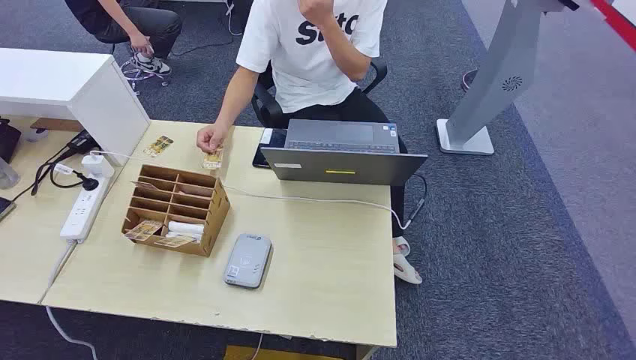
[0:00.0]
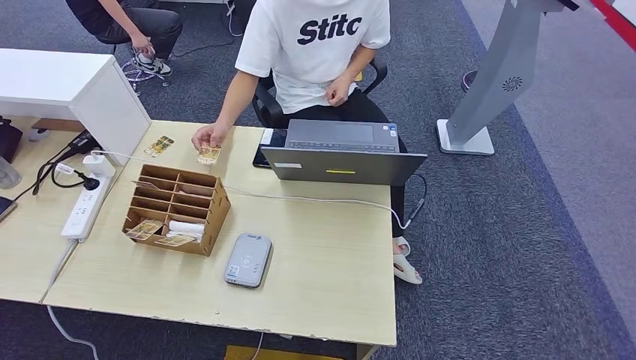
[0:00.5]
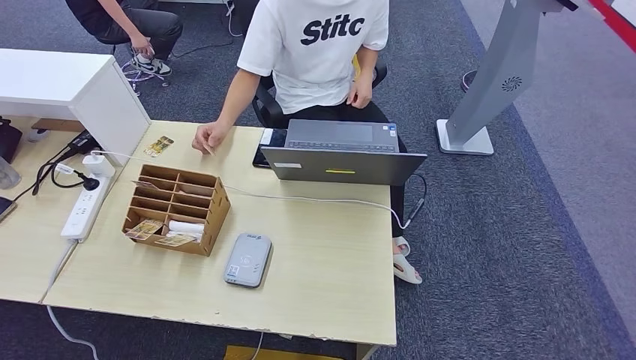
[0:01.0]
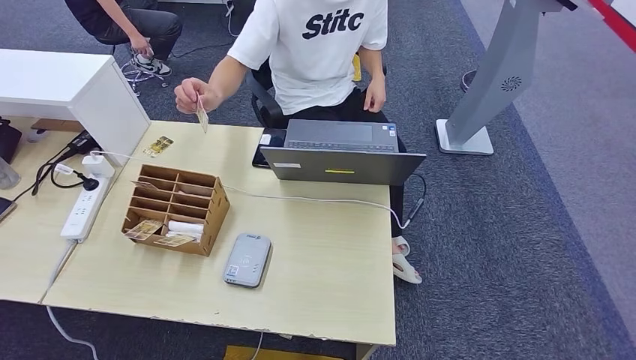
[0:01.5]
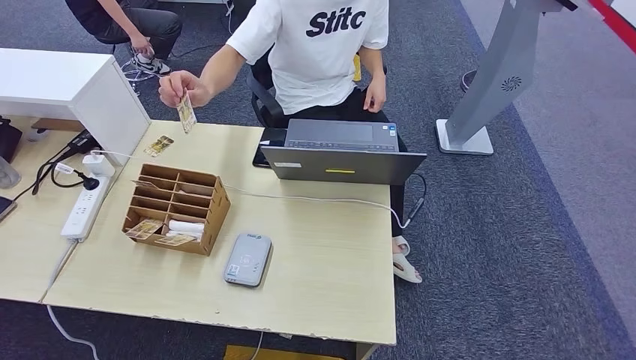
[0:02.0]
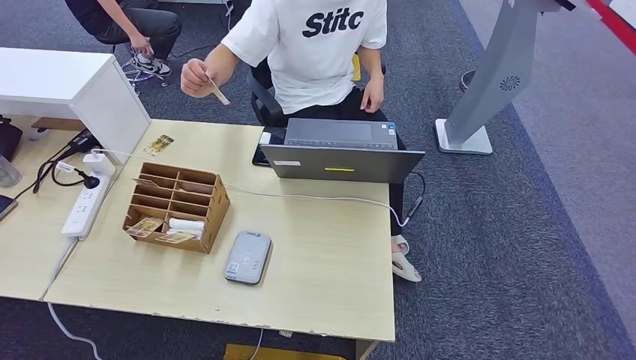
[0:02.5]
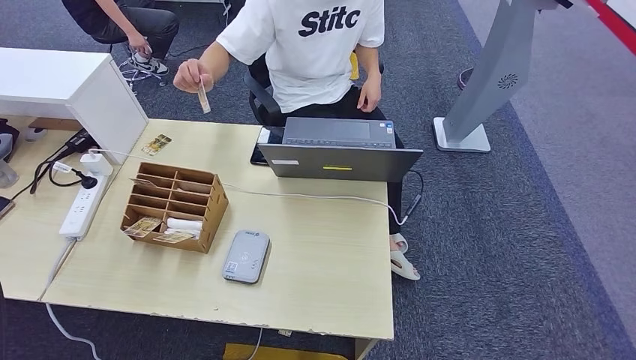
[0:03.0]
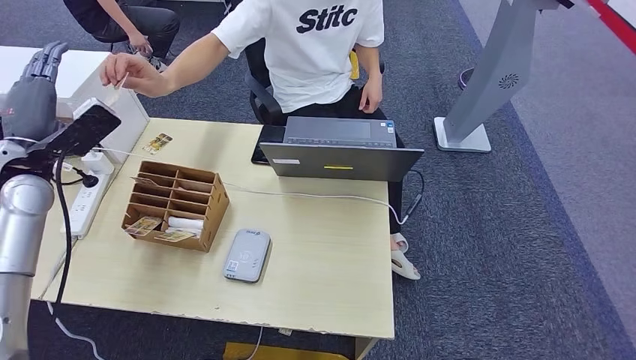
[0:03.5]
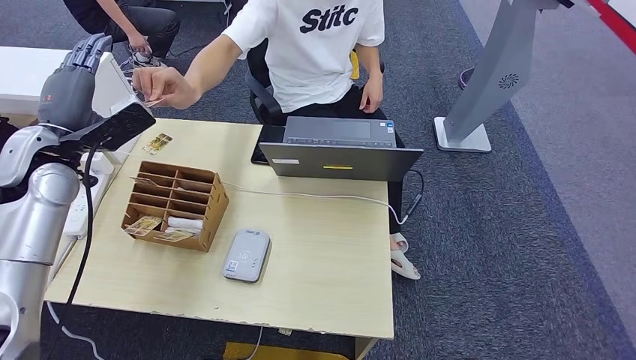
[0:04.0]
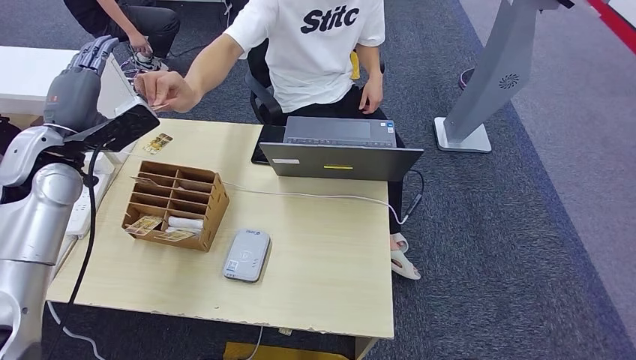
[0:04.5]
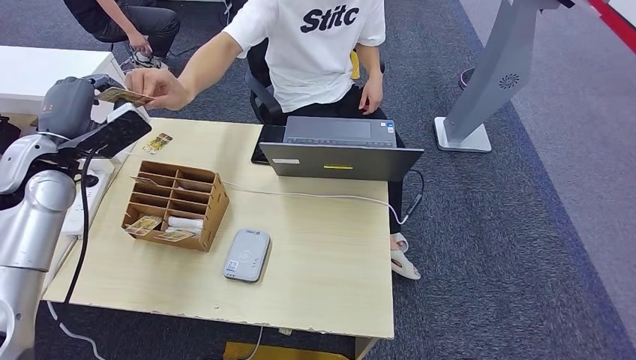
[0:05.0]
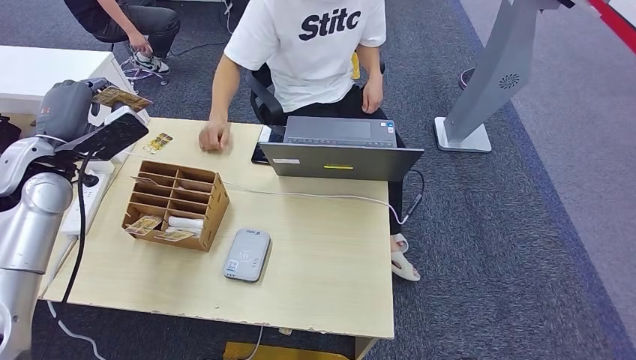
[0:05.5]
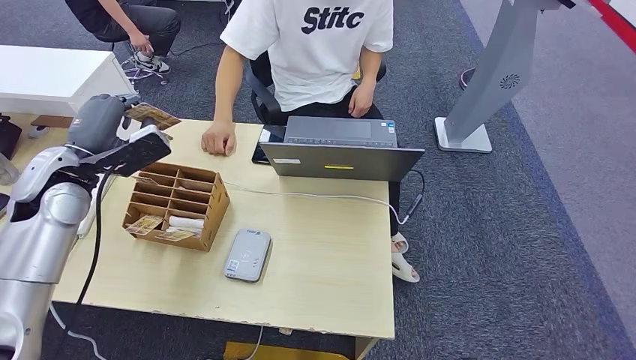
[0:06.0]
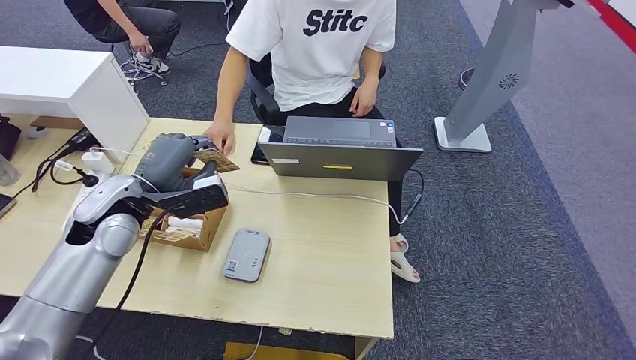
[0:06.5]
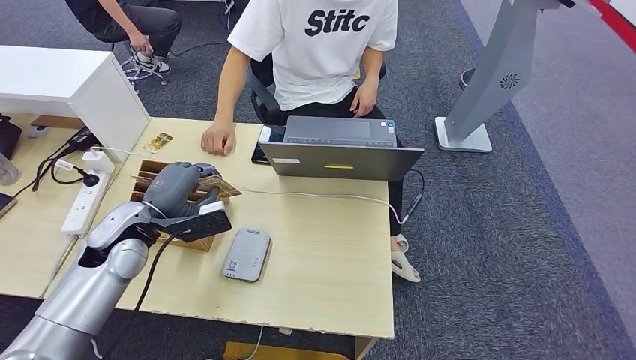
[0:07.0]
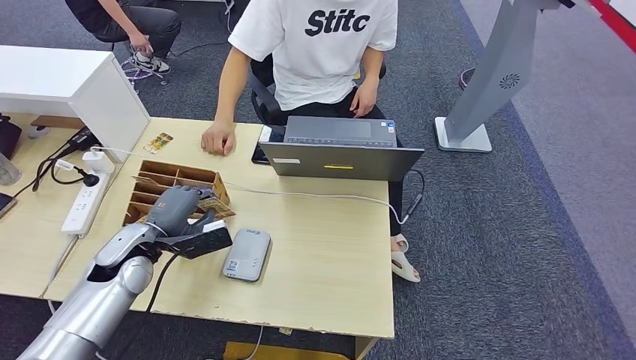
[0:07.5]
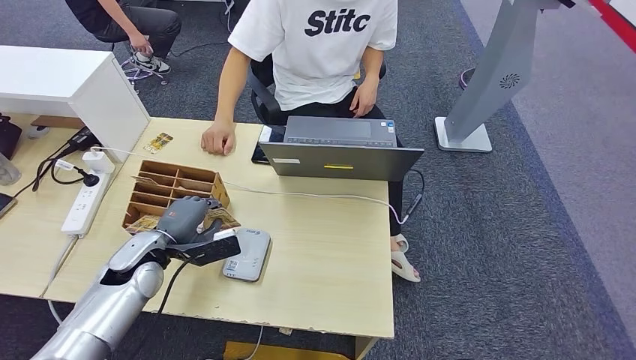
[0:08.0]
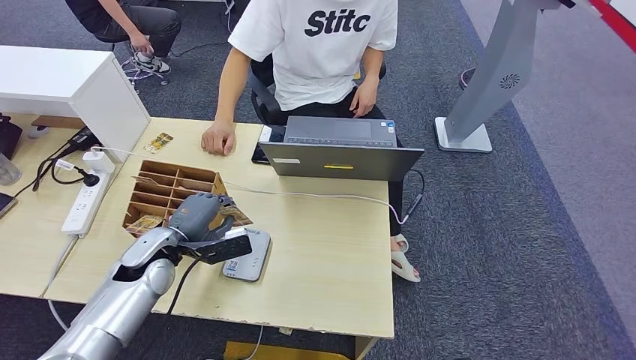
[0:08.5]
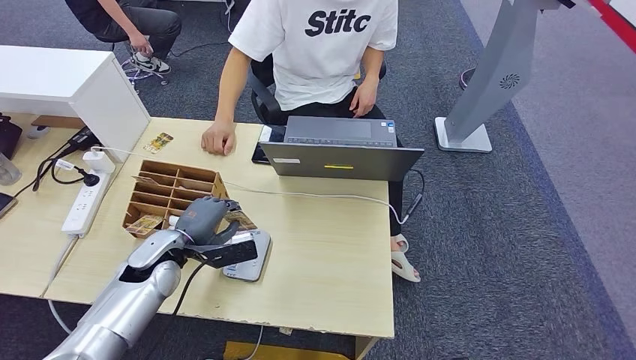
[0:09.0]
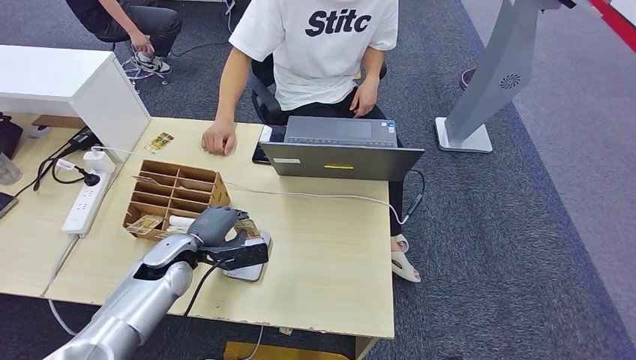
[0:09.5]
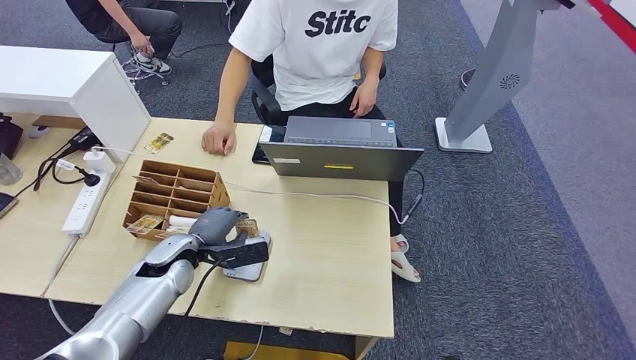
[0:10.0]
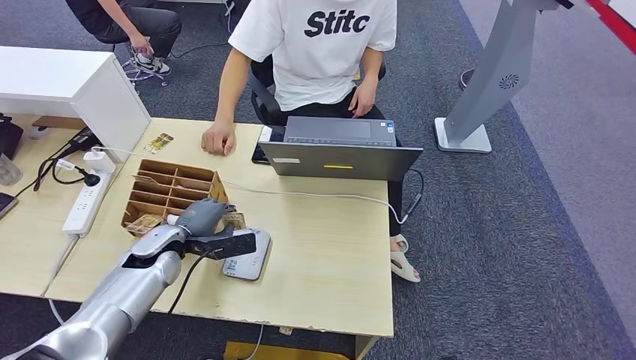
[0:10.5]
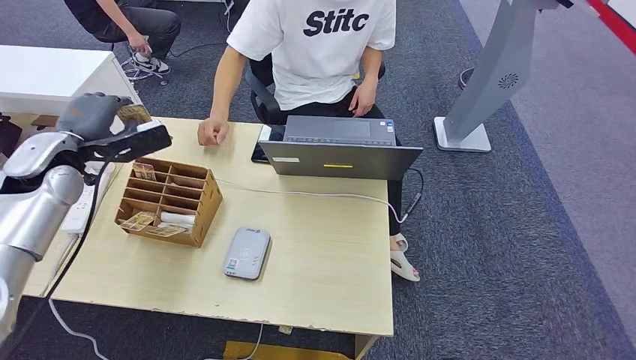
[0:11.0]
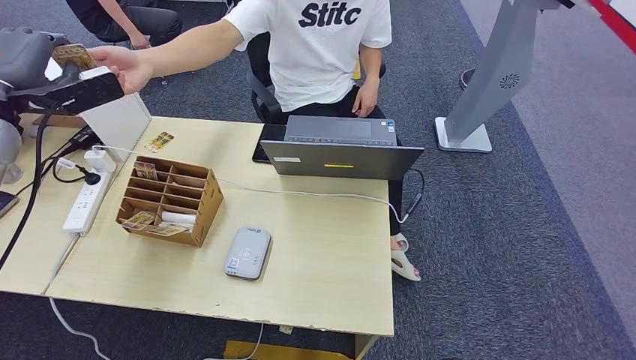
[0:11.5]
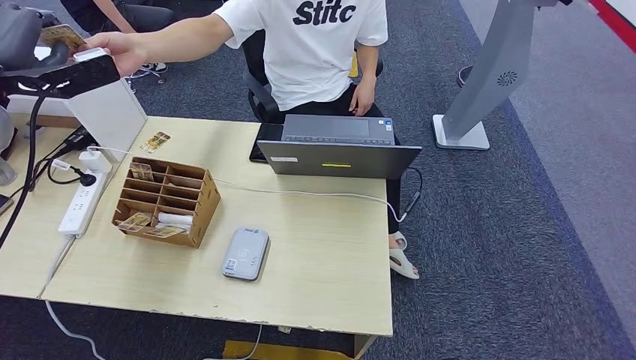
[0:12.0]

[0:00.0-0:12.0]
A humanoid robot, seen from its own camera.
Step, 0:00.0 to 0:04.0: Take the ID card from the person's hand.
Step, 0:05.0 to 0:09.5: Place the ID card on the card reader.
0:04.0 to 0:06.0: The hands stay close to where they were, moving slightly.
0:06.0 to 0:08.0: The left hand moves downward, some 15 cm.
0:08.0 to 0:10.0: The hands stay close to where they were, moving slightly.

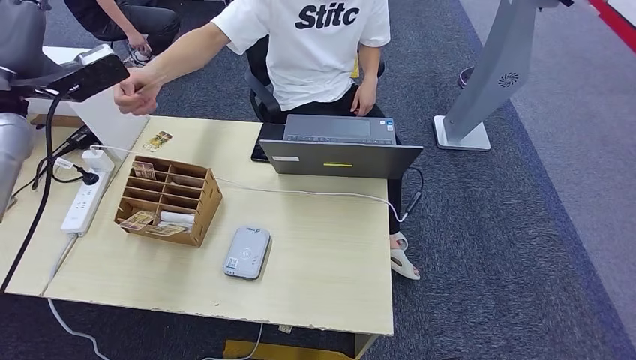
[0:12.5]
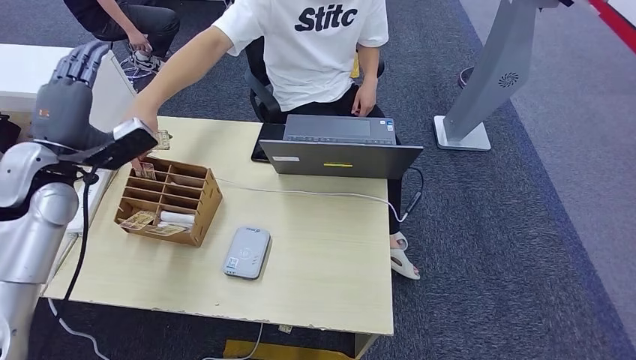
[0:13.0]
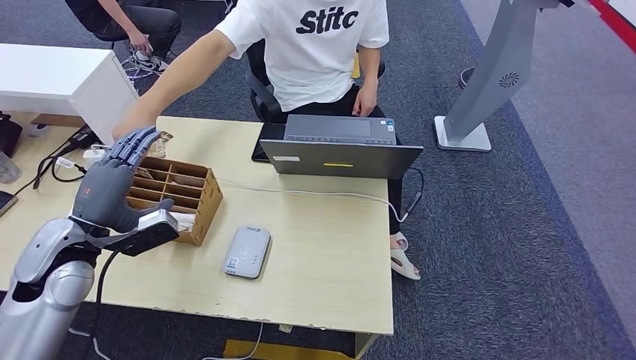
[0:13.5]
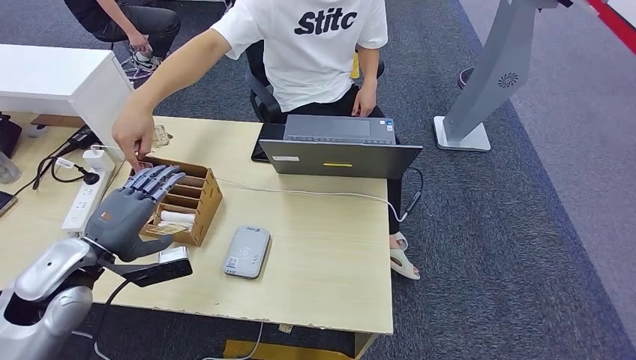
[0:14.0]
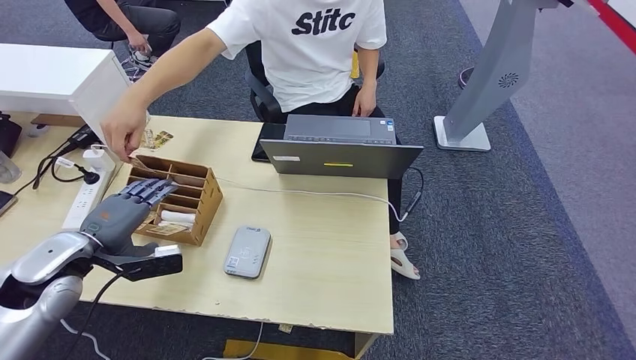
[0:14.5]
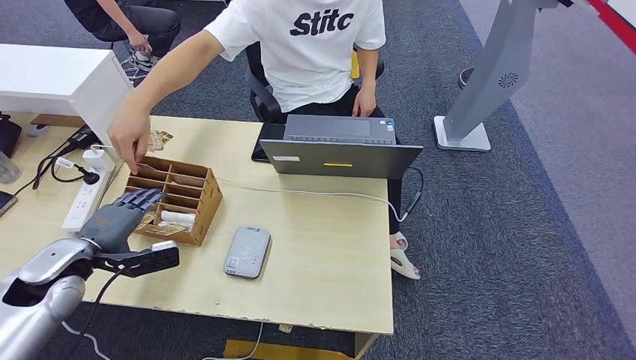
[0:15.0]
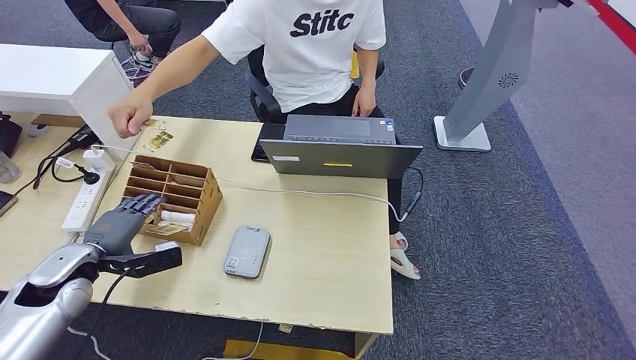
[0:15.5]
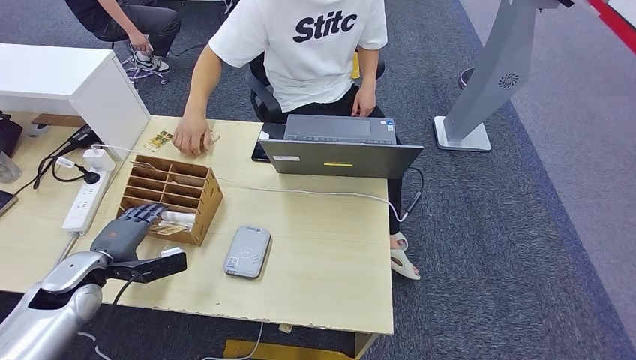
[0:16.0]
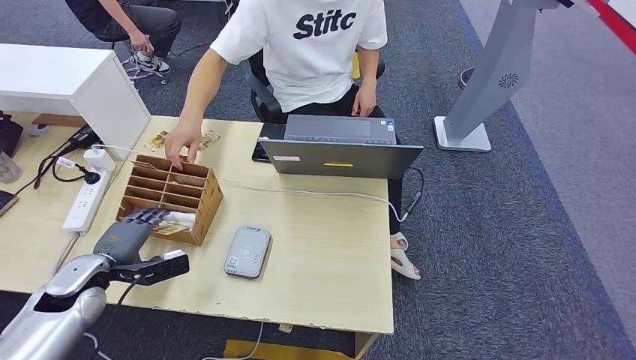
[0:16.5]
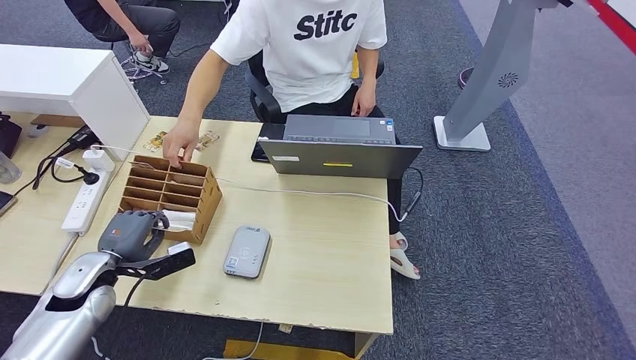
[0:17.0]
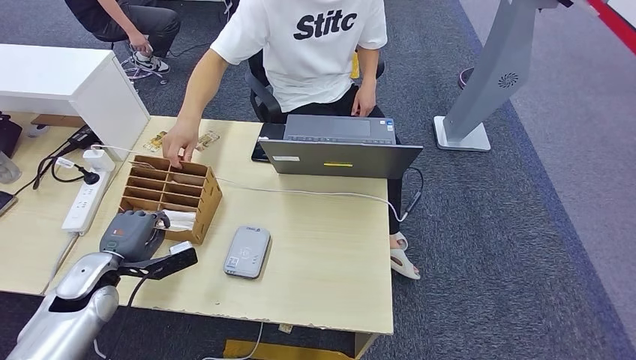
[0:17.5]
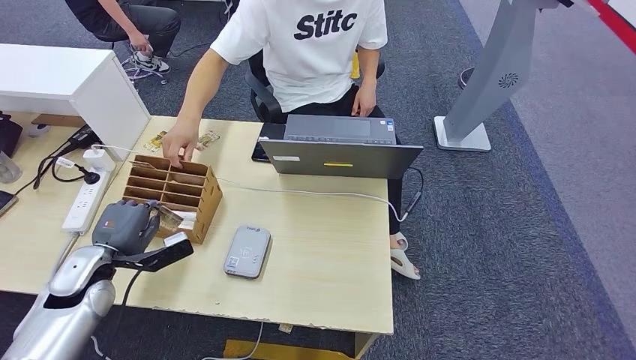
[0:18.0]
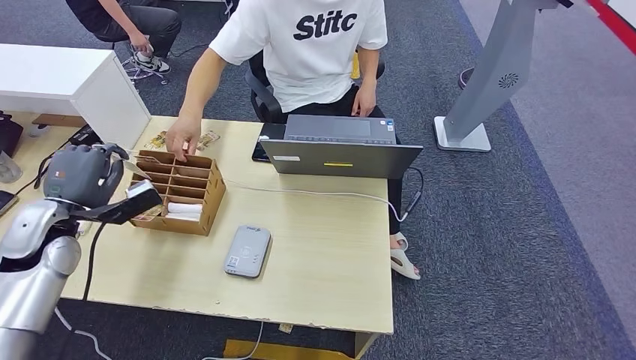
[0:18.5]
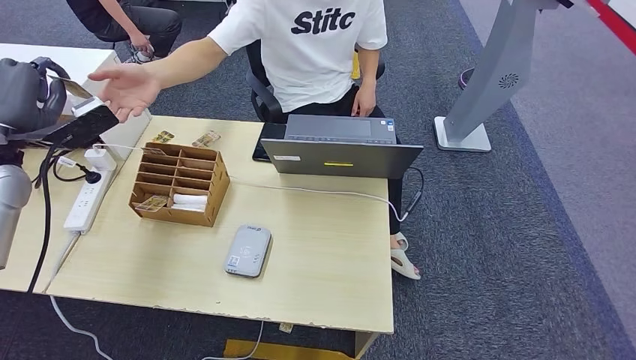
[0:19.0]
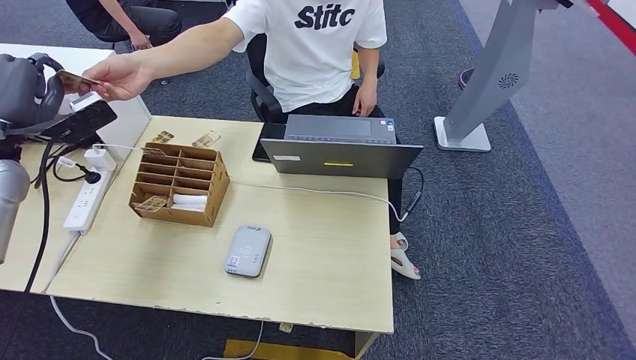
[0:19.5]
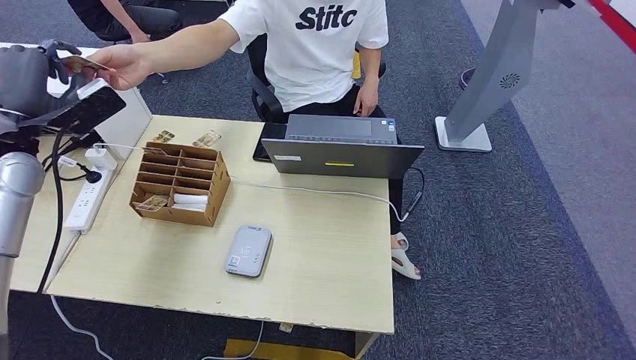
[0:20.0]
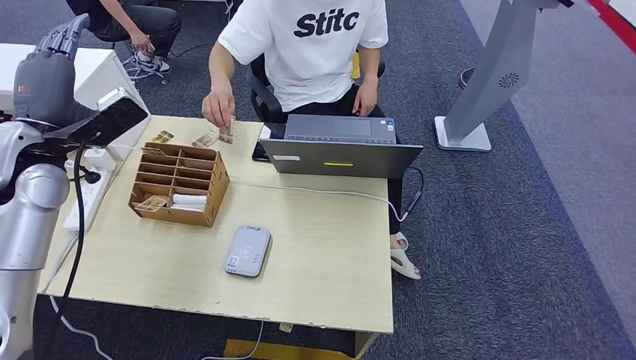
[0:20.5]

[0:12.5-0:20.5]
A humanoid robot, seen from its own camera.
Step, 0:13.0 to 0:18.5: Pick up the room key from the key card box.
Step, 0:19.0 to 0:20.5: Hand the room key to the person.
0:12.5 to 0:14.5: The left hand moves downward and backward, some 25 cm.
0:14.5 to 0:16.5: The left hand shifts about 10 cm downward.
0:16.5 to 0:18.5: The left hand is displaced upward by about 10 cm.
0:18.5 to 0:20.5: The left hand shifts about 10 cm upward.
